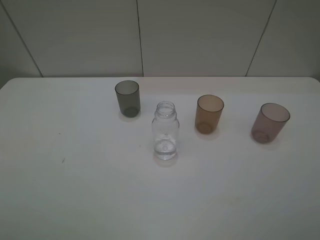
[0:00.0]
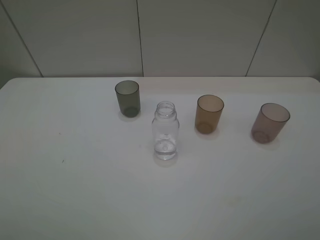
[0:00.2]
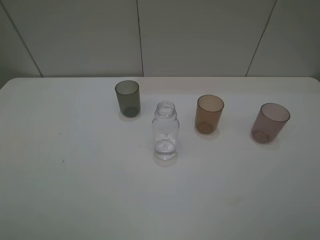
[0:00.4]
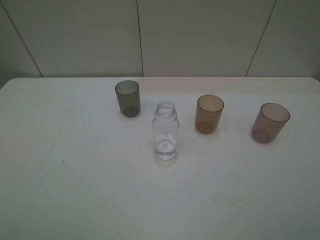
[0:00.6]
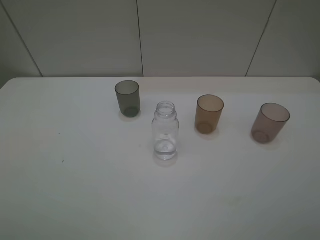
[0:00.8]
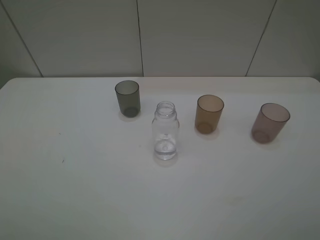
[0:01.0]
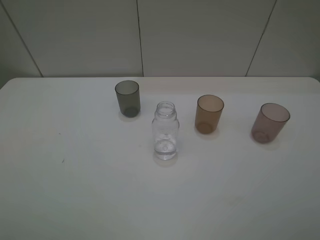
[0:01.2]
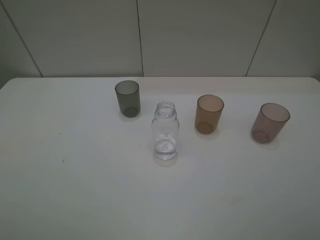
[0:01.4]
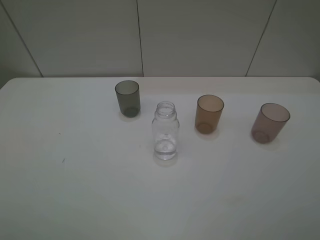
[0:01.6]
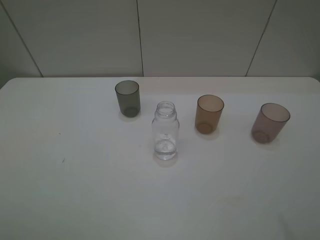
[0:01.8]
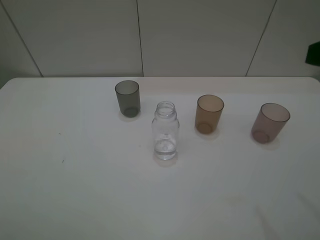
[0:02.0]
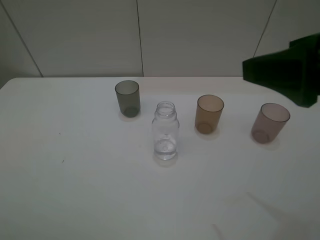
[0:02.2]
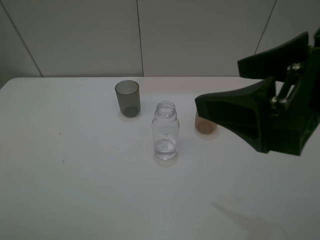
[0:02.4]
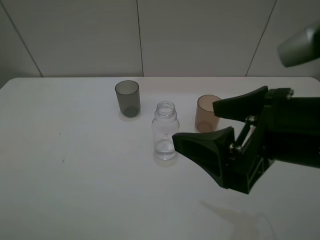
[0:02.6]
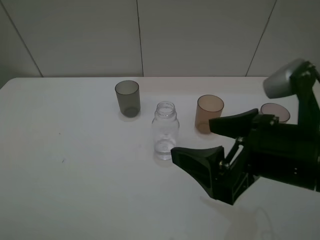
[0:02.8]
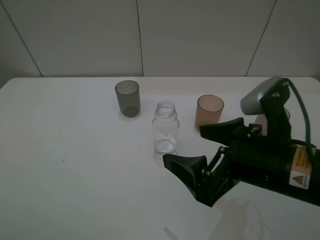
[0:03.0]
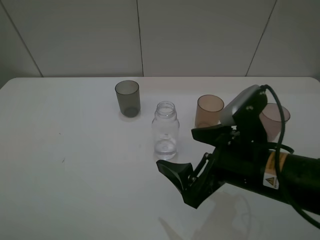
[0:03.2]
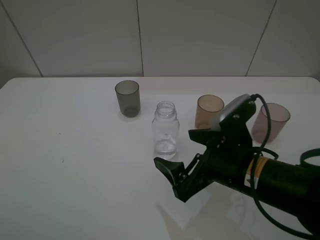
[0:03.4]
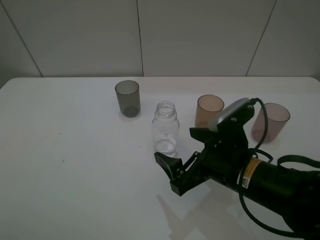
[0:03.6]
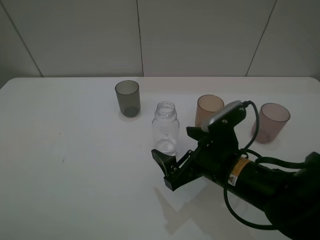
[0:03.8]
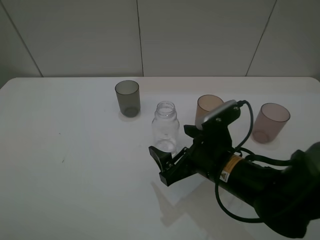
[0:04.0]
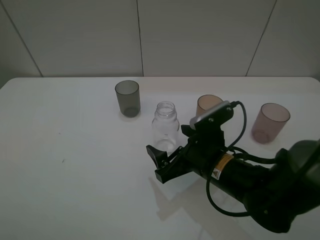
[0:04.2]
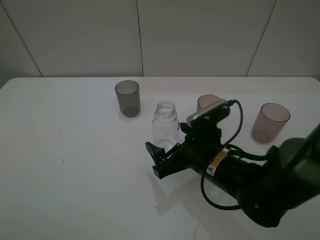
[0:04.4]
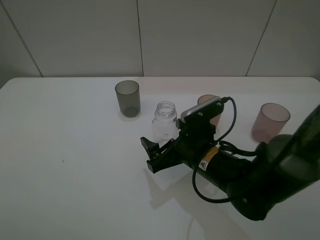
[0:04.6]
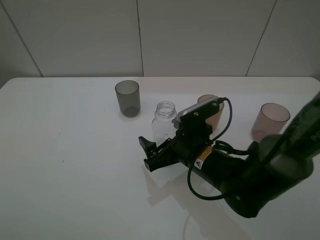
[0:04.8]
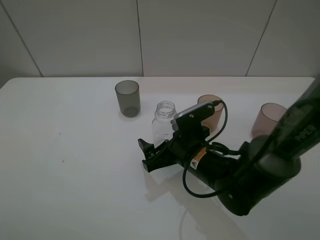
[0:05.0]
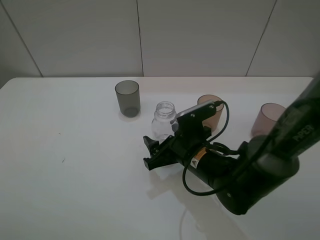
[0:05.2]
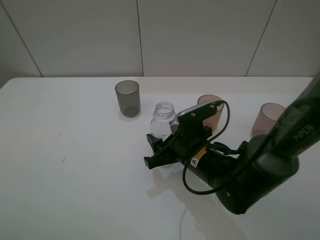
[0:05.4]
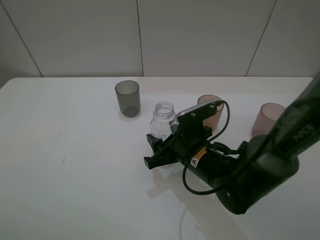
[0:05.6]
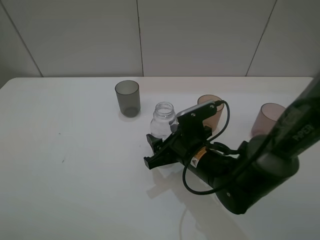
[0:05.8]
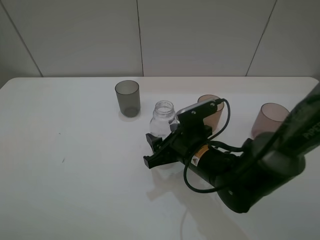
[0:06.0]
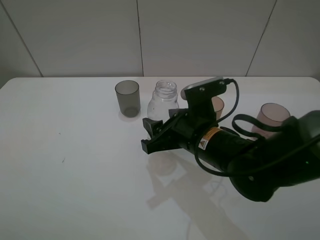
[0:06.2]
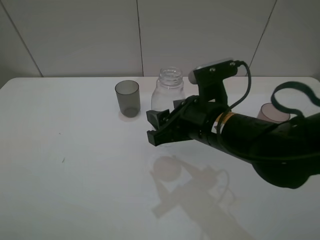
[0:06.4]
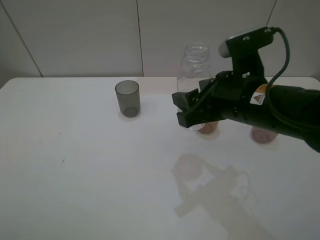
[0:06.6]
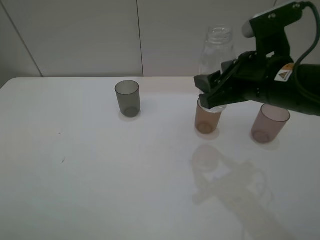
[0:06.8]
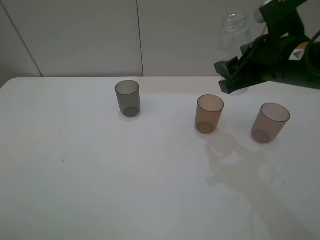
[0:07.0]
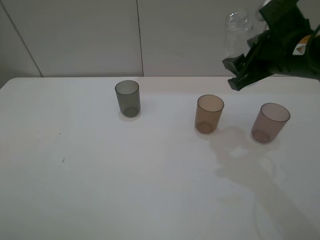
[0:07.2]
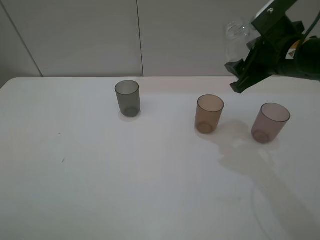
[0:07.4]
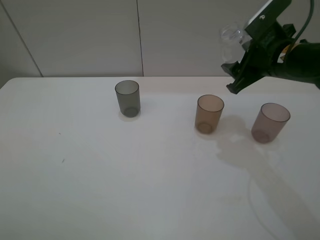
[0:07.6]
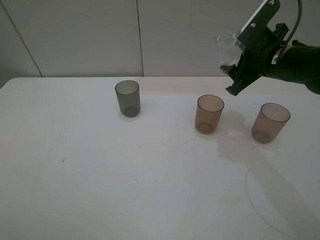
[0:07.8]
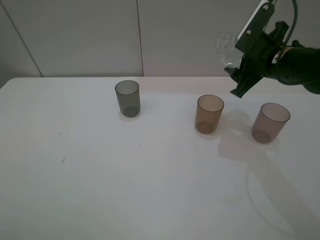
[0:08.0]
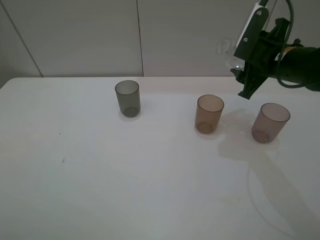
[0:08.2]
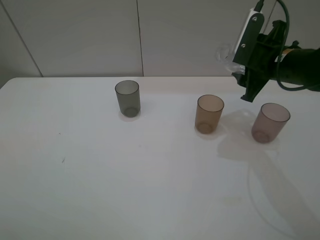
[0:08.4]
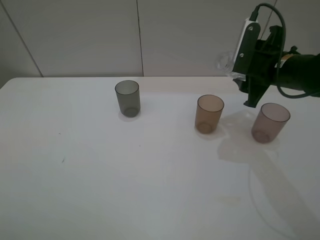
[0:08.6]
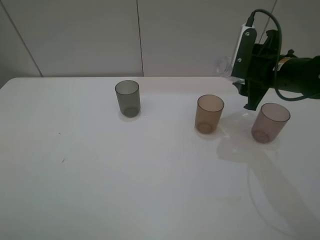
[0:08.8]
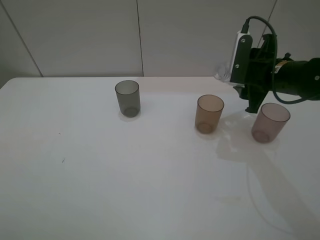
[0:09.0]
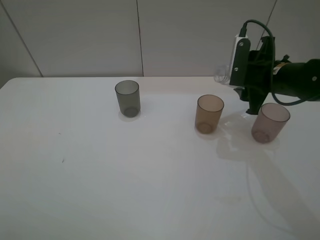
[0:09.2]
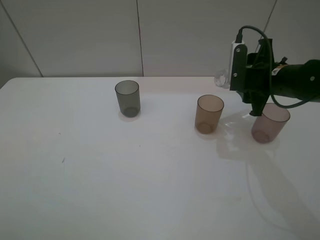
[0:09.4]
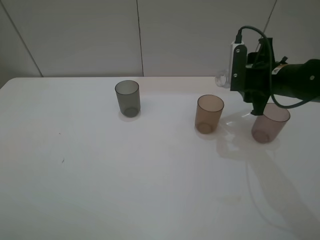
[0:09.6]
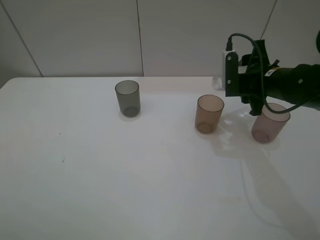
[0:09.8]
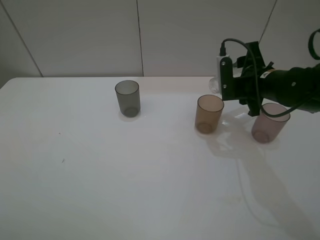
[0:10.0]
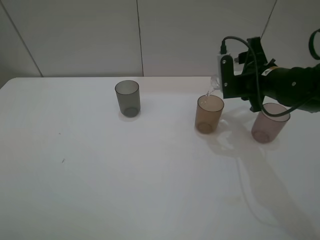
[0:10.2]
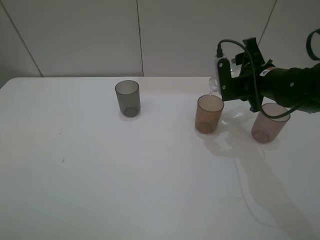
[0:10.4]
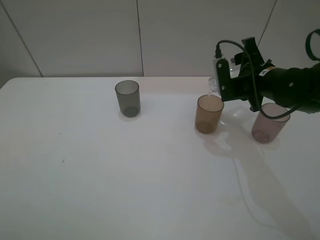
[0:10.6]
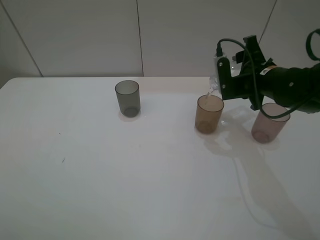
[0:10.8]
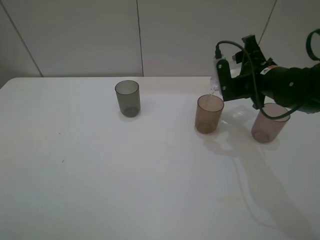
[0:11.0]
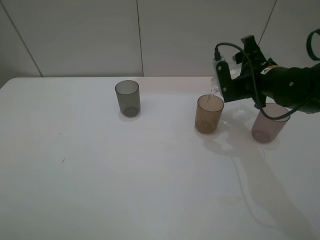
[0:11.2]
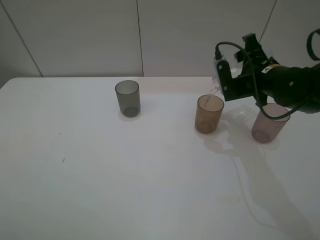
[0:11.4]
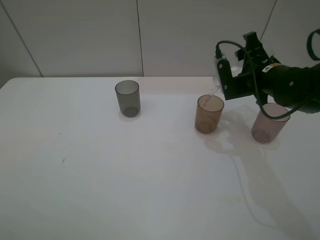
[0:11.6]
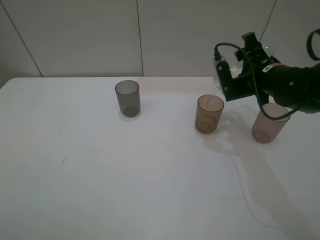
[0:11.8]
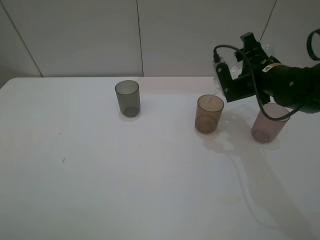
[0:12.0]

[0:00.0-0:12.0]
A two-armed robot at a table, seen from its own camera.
Task of the whole recording: pick up the bottle filled with water and pour water into the middle cup of the three cups.
Step, 0:00.0 to 0:05.6: Grasp the transparent bottle with the right gripper.
Step, 0:05.8 to 0:10.0: Pour water from transparent bottle tobrown cup with the right gripper.
0:01.6 to 0:03.0: The right gripper goes roughly 20 cm to the left, downward and forward.
0:03.0 to 0:04.4: The right gripper shifts roughly 10 cm downward and forward.
0:04.4 to 0:06.0: The right gripper closes up.
0:06.0 to 0:07.6: The right gripper is displaced to the right, upward and forward by about 20 cm.
0:10.4 to 0:12.0: There are only small adjustments of the grippers.

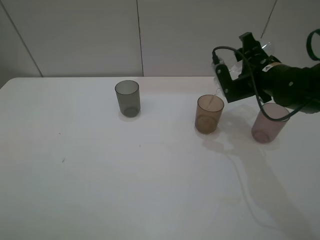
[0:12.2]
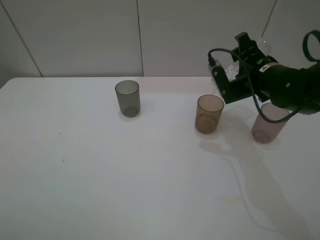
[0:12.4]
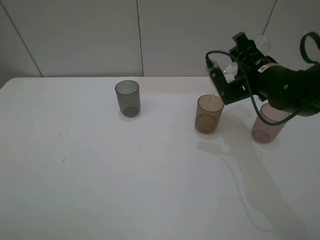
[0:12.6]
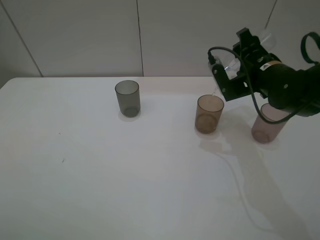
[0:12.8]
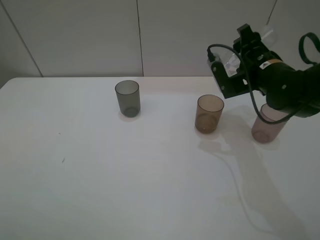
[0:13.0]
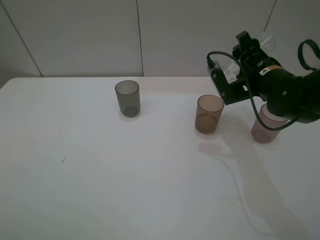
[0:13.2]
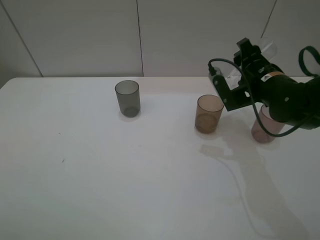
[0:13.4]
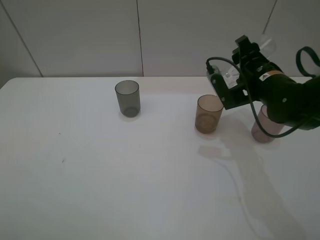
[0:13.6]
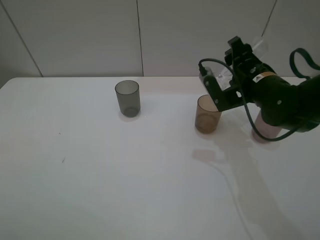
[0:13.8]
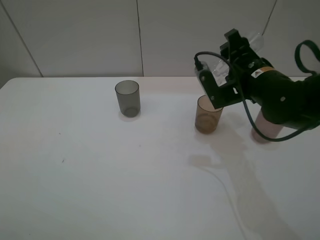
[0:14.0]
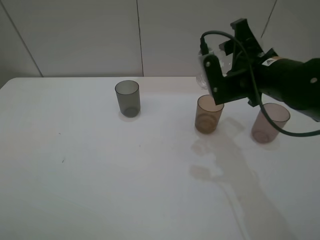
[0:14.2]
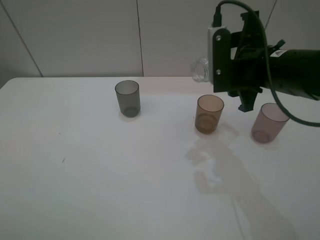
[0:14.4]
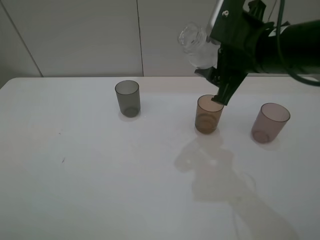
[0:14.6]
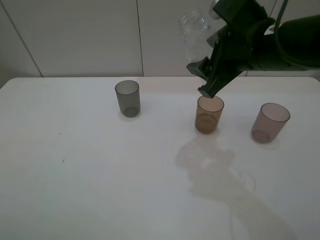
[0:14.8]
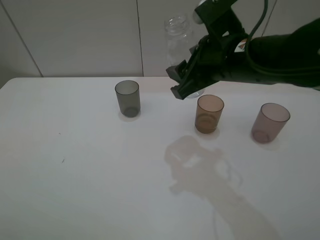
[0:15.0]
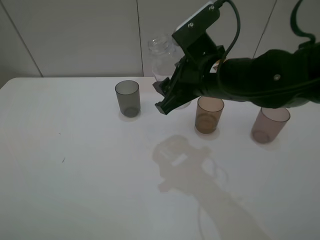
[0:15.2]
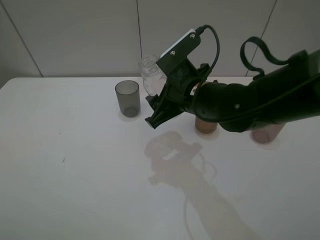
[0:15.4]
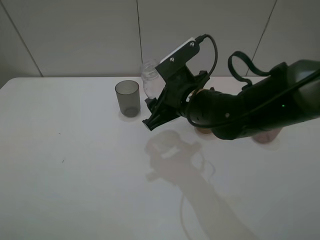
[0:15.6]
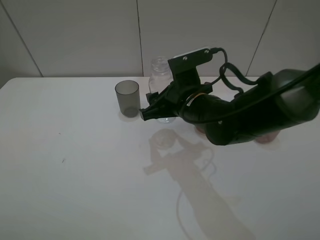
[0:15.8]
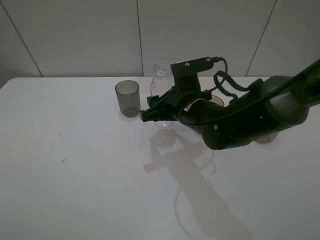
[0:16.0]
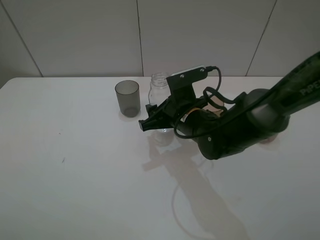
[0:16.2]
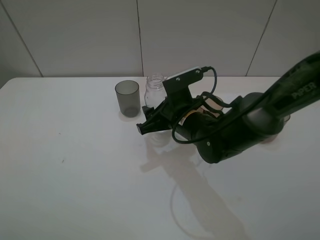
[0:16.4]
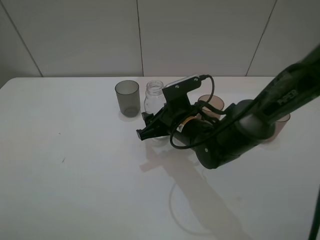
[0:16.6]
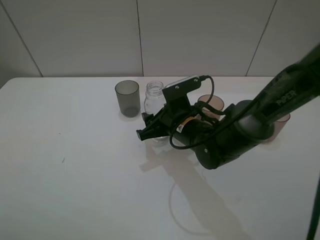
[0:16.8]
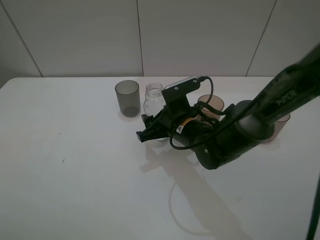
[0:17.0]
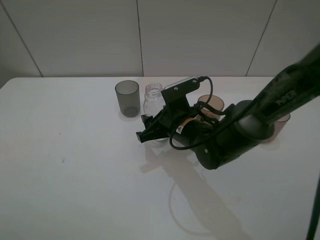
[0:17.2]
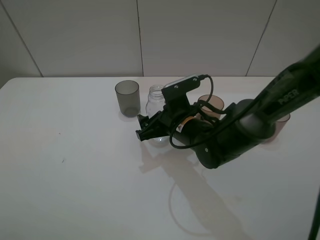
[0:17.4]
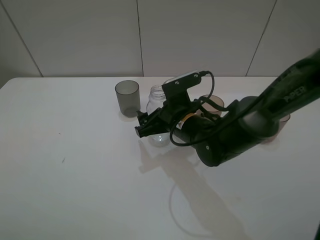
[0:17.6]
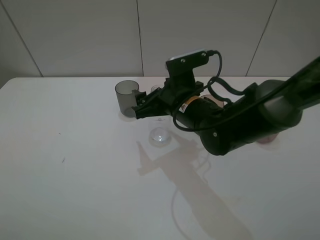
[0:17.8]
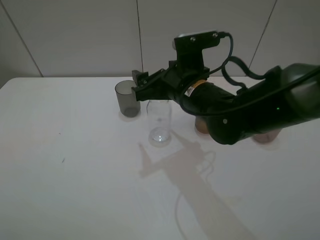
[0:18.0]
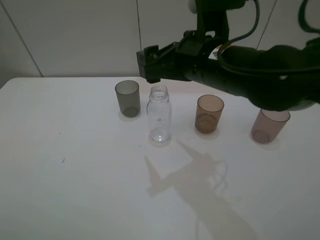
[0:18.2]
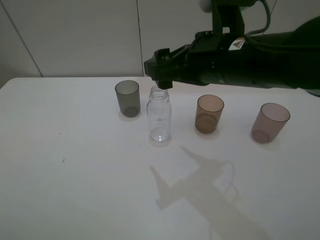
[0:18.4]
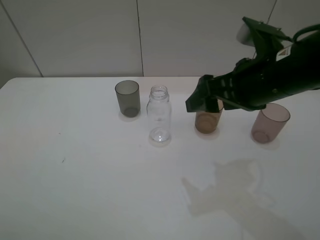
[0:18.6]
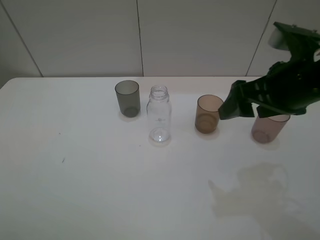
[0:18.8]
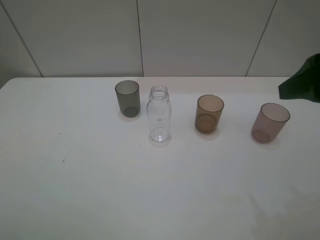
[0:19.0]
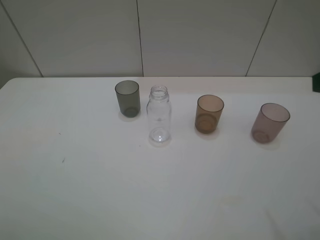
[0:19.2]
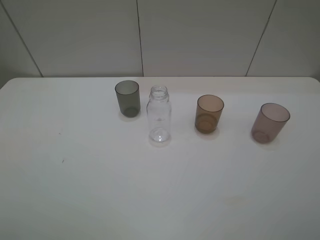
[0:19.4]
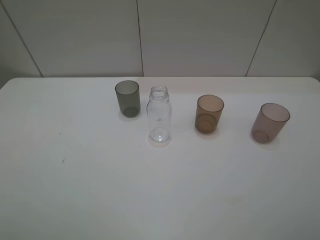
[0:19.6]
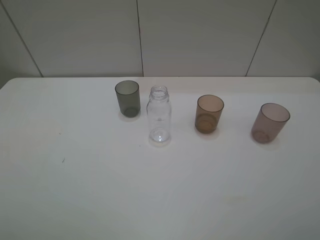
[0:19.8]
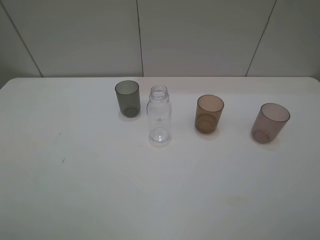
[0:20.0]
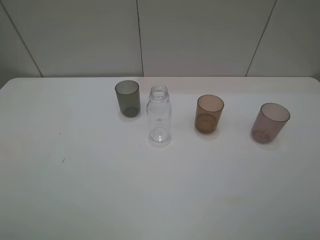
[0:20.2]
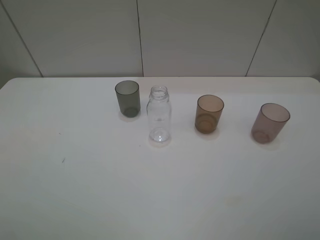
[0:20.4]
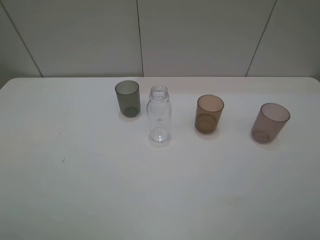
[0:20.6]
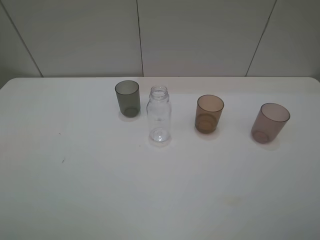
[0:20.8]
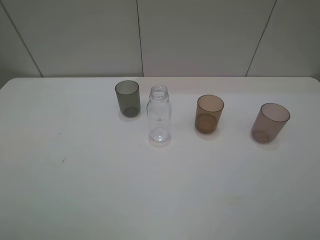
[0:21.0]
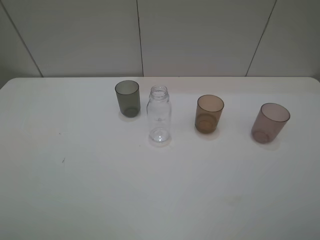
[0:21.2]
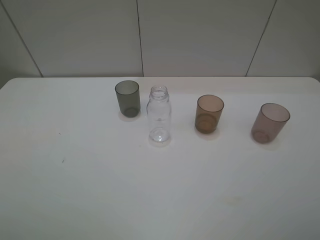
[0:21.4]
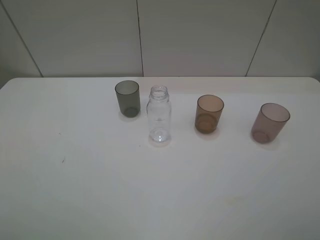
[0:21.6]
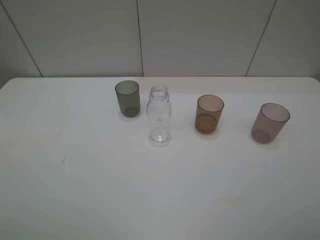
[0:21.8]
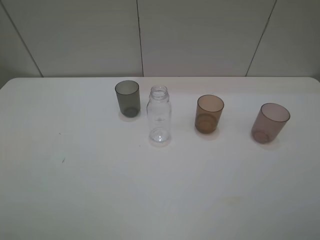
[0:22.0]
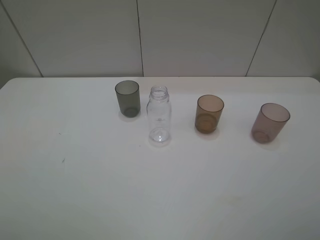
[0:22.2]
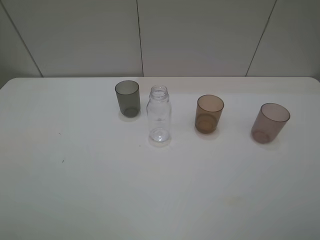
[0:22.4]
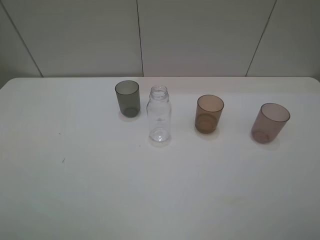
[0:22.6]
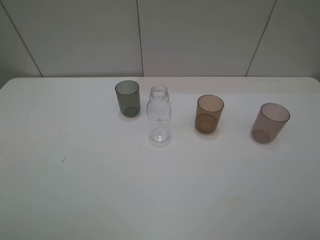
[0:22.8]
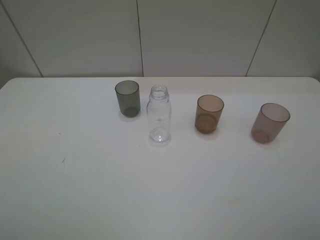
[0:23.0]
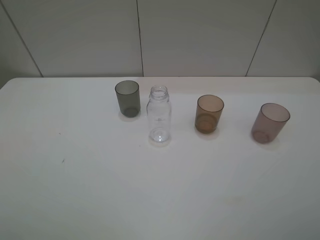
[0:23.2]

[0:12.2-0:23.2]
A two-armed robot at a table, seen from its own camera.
Task of the whole recording: pick up the bottle filled with water and pour water into the middle cup of the three cups.
Step, 0:12.2 to 0:18.0: Place the transparent bottle with the right gripper.
0:12.2 to 0:13.8: The grippers stay close to where they were, moving slightly.
0:13.8 to 0:15.4: The right gripper shifts approximately 10 cm to the left.
0:15.4 to 0:17.0: The right gripper is displaced downward by about 10 cm.
0:17.0 to 0:18.4: The right gripper heads upward, covering some 15 cm, and opens.
0:18.4 to 0:20.0: The right gripper goes roughly 30 cm backward and to the right.
0:21.6 to 0:23.2: Both grippers stay about where they are.
